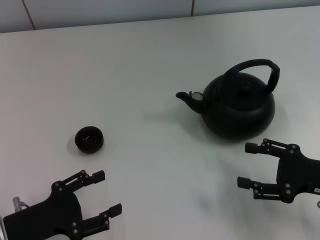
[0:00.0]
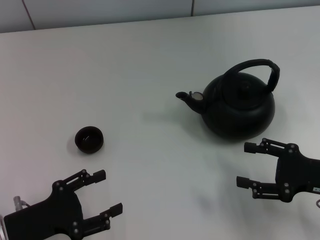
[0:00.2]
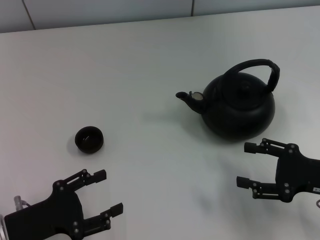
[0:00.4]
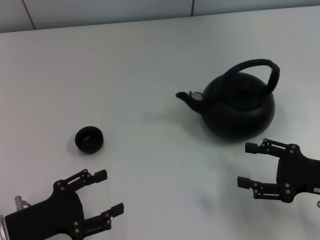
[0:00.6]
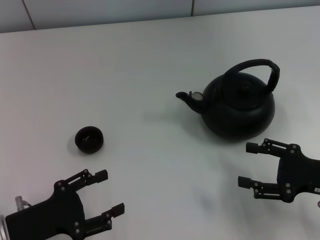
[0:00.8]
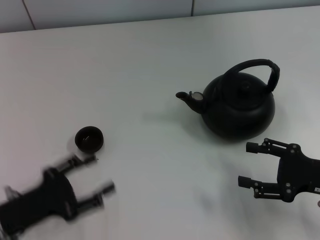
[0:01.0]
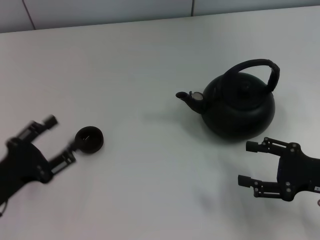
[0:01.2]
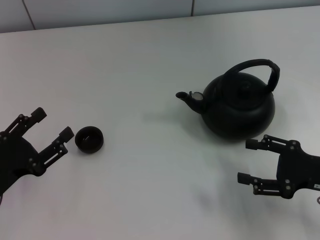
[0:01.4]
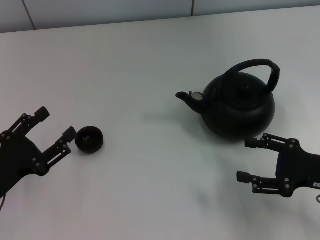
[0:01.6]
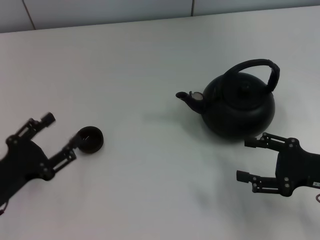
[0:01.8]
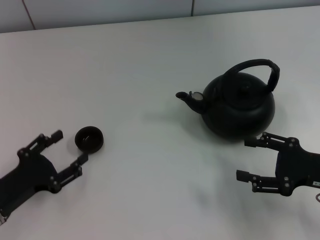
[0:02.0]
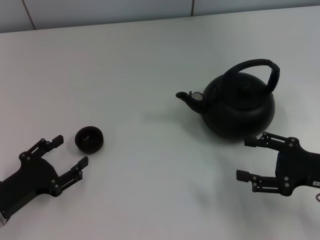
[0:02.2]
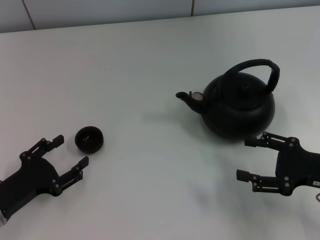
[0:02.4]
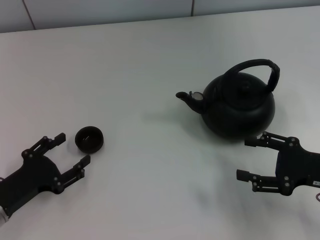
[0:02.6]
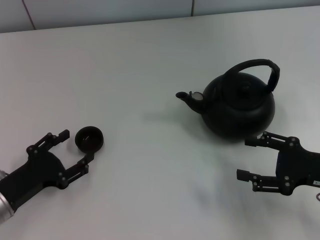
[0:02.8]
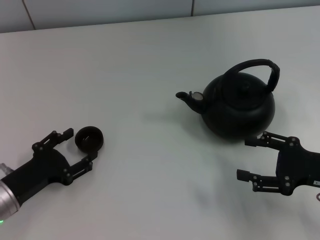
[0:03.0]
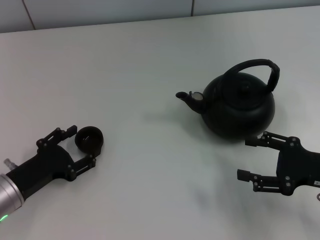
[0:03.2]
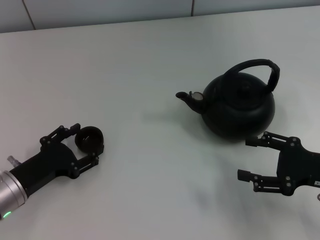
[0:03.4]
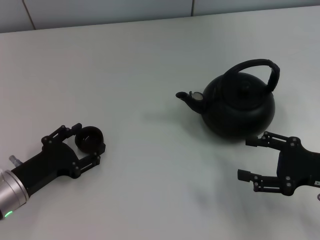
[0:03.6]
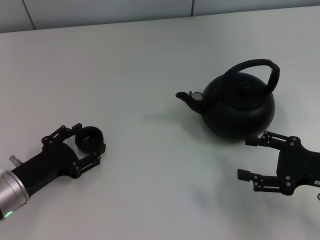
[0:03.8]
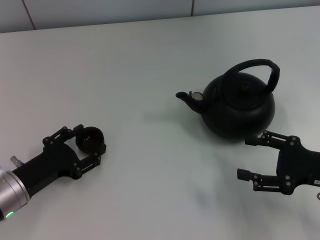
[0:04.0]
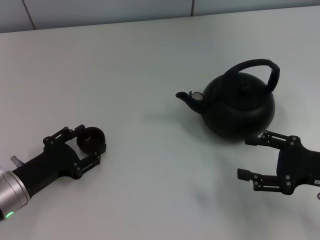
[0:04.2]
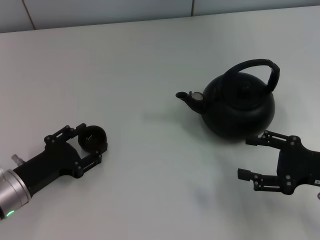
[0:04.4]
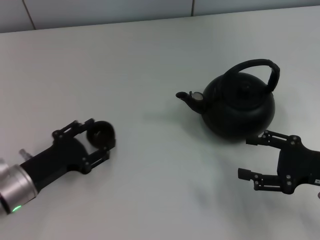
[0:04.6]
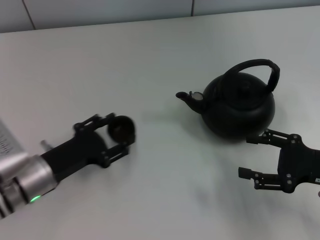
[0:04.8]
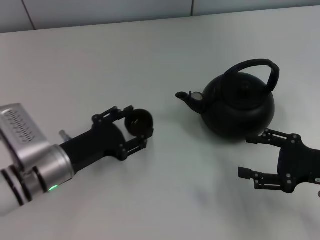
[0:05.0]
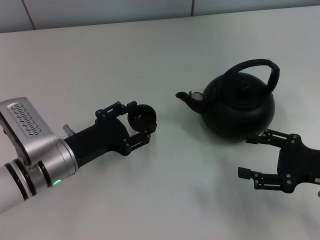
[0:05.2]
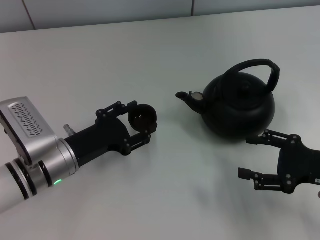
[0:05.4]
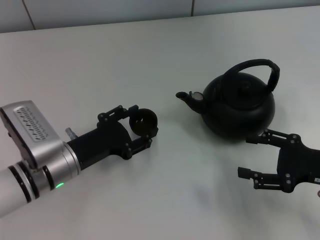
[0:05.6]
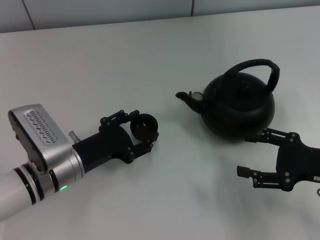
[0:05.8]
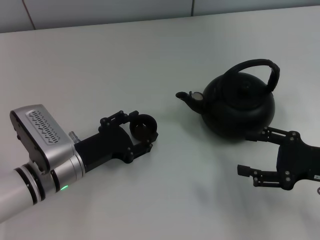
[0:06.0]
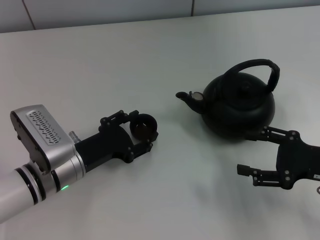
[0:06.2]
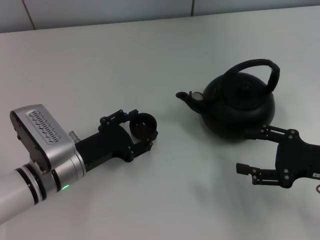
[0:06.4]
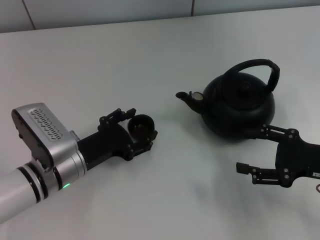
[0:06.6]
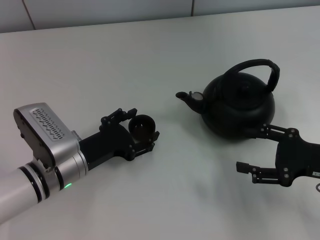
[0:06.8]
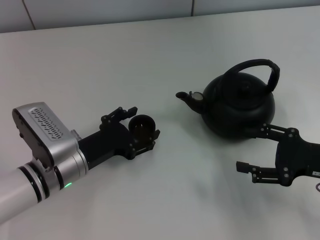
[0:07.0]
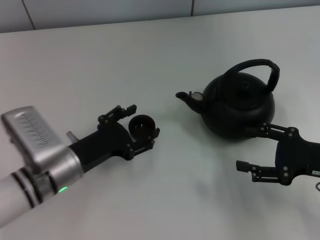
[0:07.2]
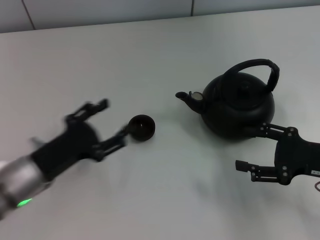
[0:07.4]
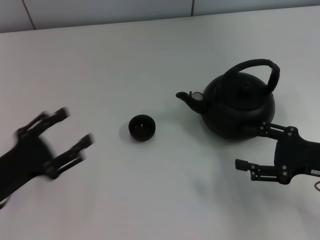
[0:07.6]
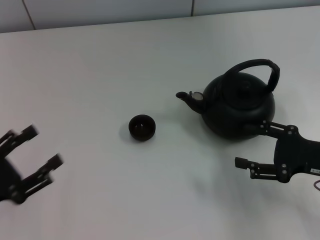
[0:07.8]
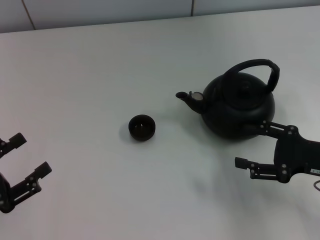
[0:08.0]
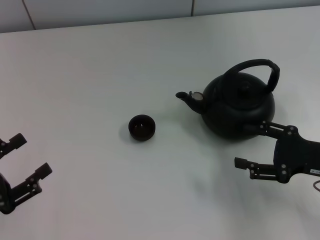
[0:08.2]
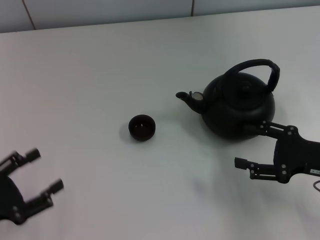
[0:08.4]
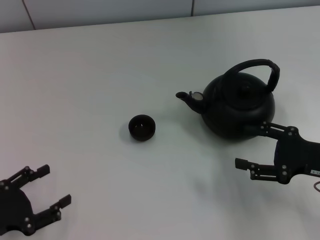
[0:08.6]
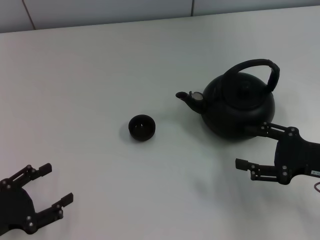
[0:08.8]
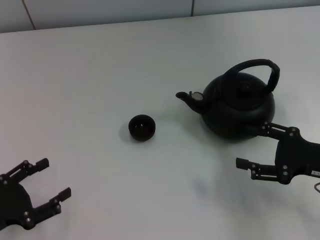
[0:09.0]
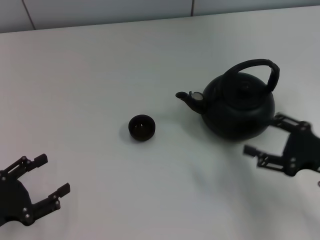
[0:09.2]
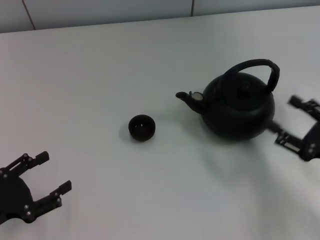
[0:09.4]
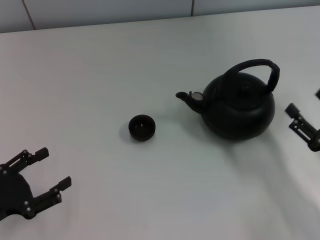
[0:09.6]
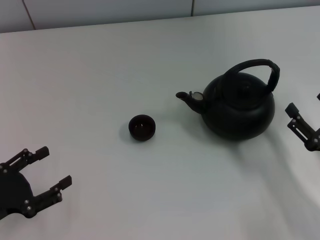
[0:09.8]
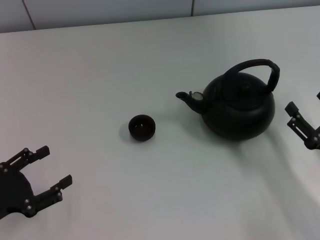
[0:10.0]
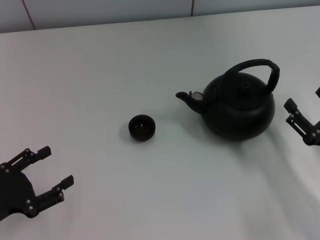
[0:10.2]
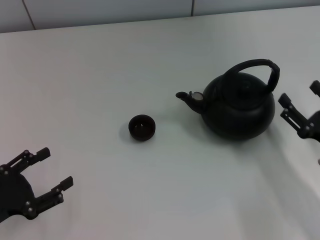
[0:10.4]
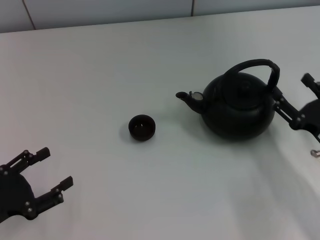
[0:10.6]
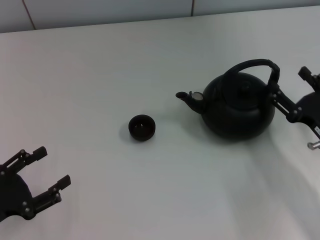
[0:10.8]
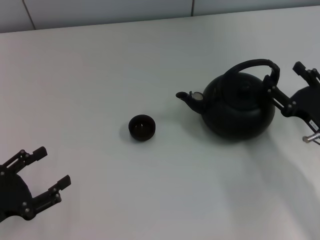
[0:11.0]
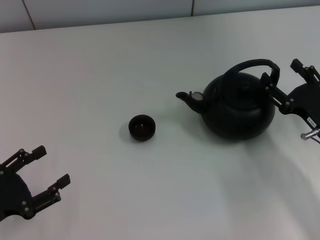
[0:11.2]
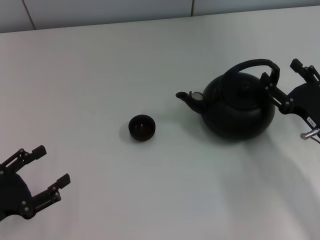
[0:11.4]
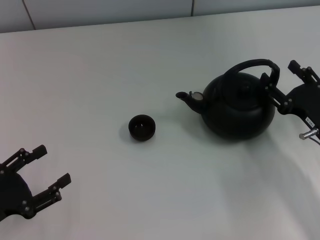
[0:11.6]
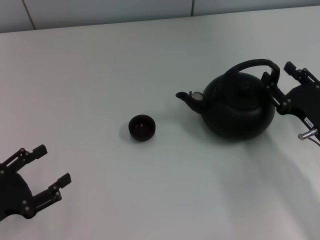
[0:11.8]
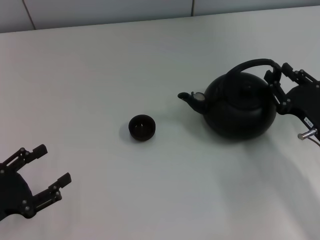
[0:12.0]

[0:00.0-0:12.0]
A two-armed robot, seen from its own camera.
Task of the whole recording: Grasp the handle of the teapot with one hand and pour tea into the teacup.
Step, 0:00.0 to 0:04.6: Pick up the teacup with the left gripper.
Step, 0:04.8 to 0:07.4: Place the teacup in the center of view with the left gripper.
0:01.6 to 0:04.4: The grippers stay close to where they were, moving slightly.
0:04.4 to 0:06.0: The left gripper is displaced to the right by about 10 cm.
0:06.0 to 0:07.6: The left gripper goes approximately 15 cm to the left and backward.
0:07.6 to 0:09.0: The left gripper moves roughly 5 cm.
0:10.4 to 0:12.0: The right gripper travels forward by approximately 5 cm.

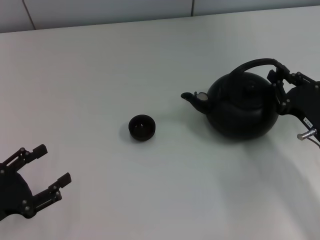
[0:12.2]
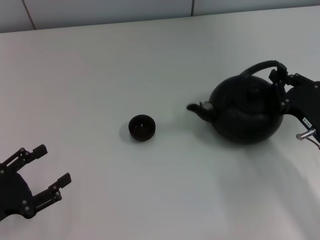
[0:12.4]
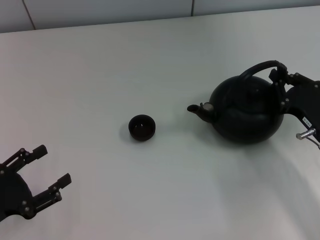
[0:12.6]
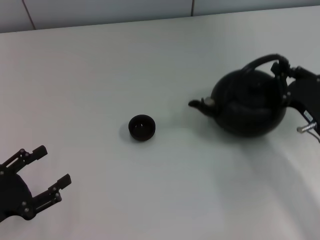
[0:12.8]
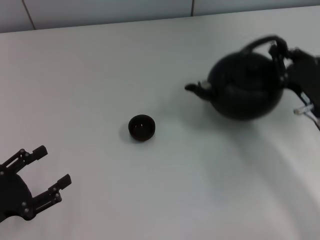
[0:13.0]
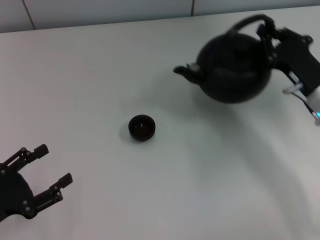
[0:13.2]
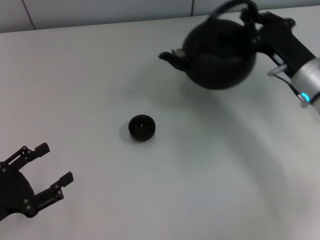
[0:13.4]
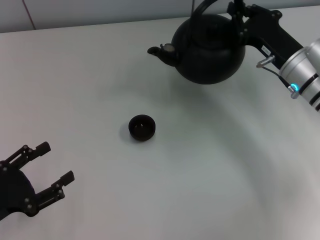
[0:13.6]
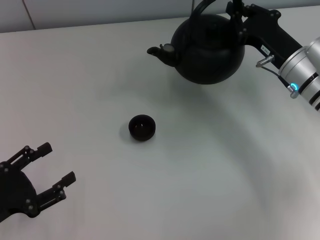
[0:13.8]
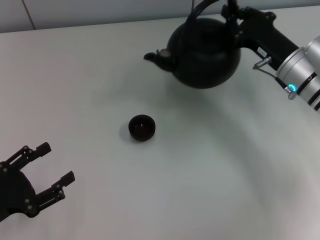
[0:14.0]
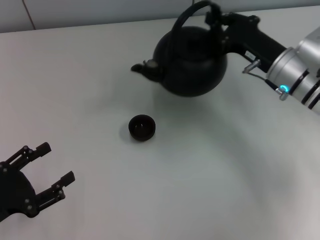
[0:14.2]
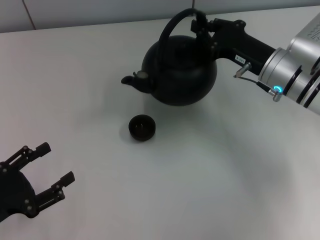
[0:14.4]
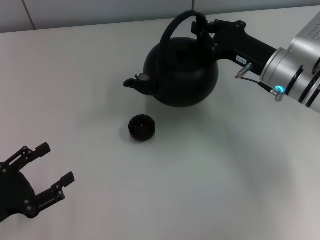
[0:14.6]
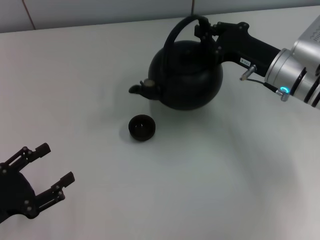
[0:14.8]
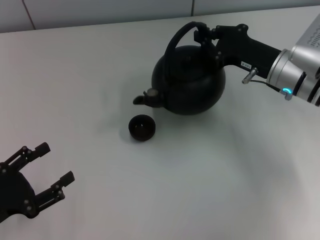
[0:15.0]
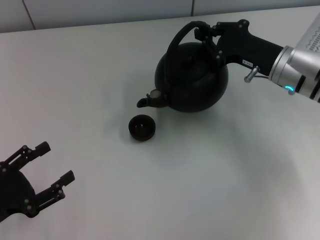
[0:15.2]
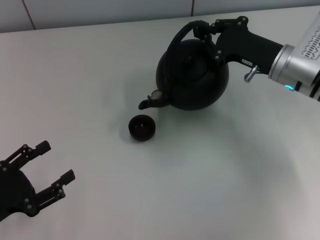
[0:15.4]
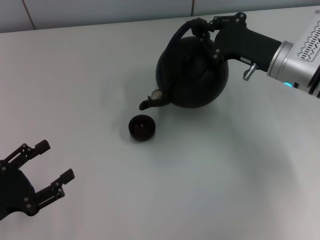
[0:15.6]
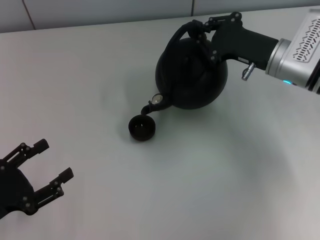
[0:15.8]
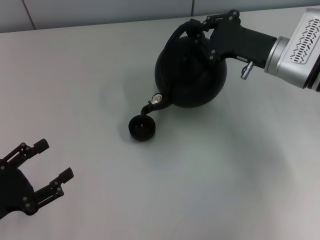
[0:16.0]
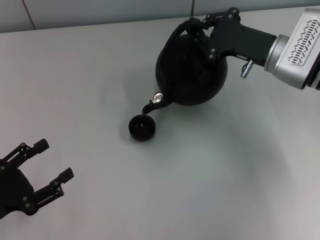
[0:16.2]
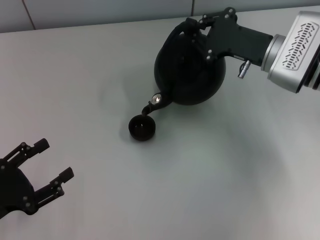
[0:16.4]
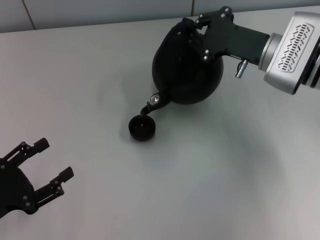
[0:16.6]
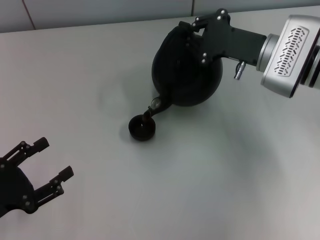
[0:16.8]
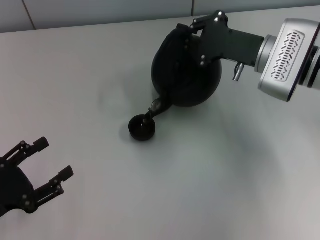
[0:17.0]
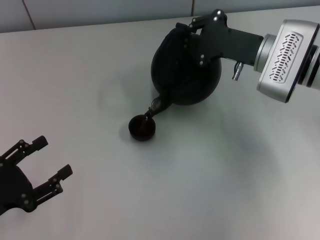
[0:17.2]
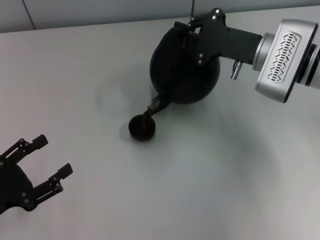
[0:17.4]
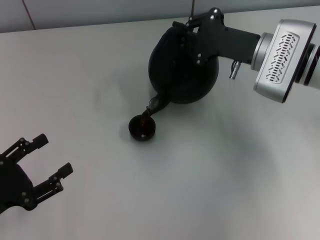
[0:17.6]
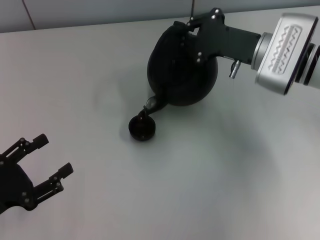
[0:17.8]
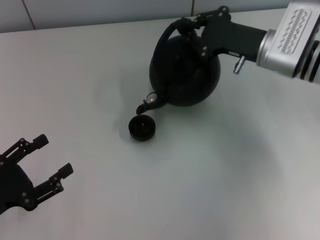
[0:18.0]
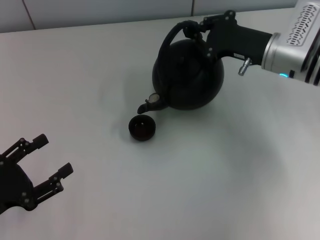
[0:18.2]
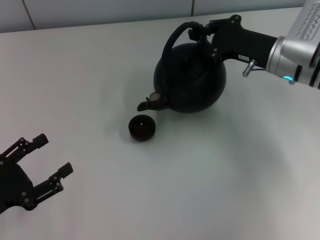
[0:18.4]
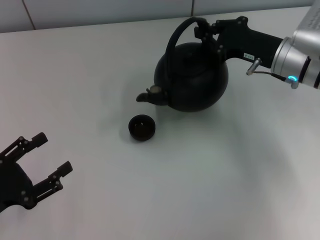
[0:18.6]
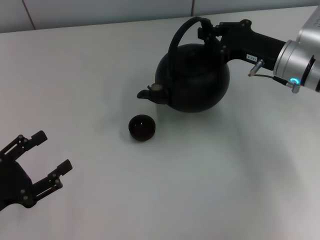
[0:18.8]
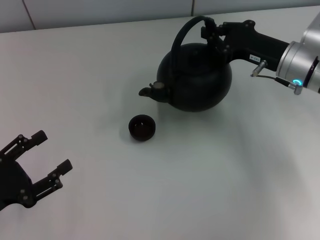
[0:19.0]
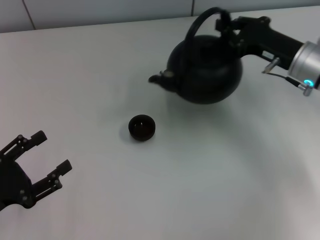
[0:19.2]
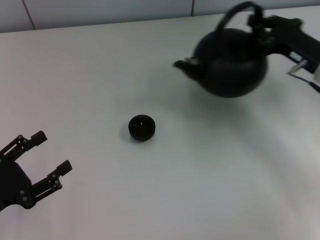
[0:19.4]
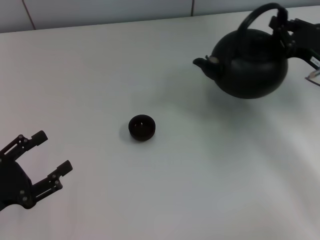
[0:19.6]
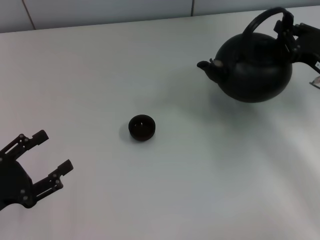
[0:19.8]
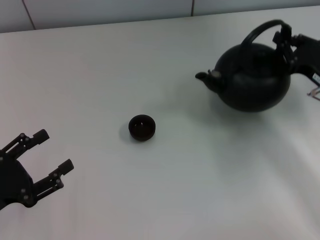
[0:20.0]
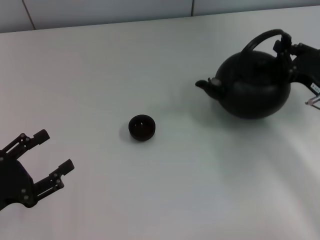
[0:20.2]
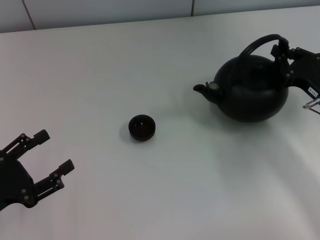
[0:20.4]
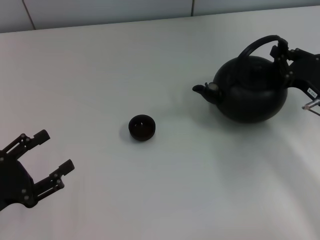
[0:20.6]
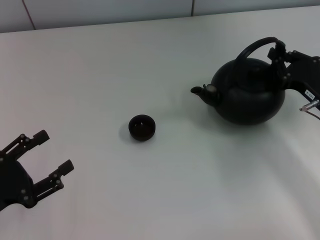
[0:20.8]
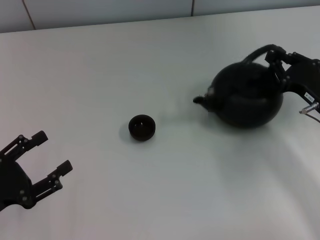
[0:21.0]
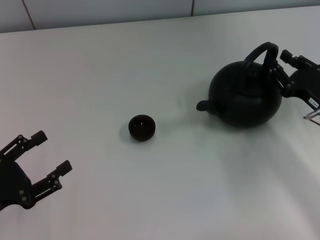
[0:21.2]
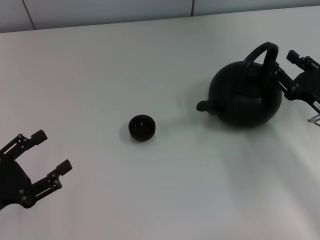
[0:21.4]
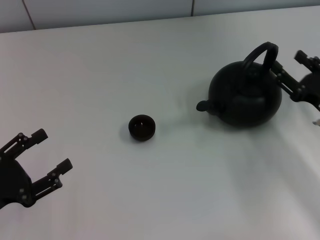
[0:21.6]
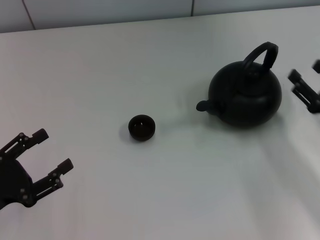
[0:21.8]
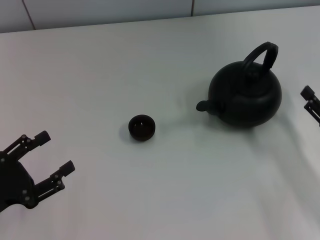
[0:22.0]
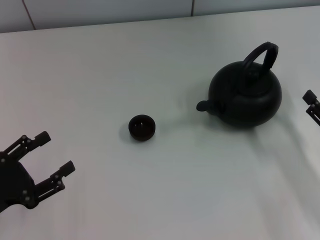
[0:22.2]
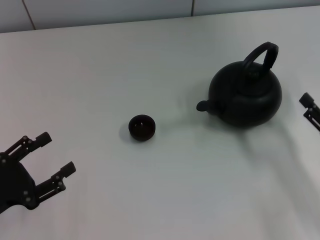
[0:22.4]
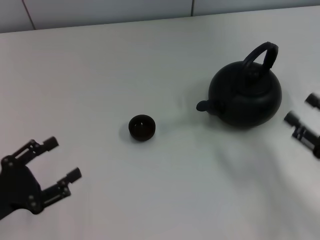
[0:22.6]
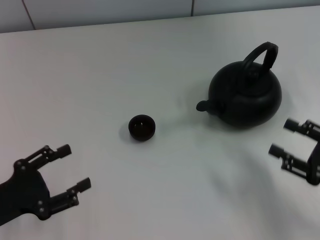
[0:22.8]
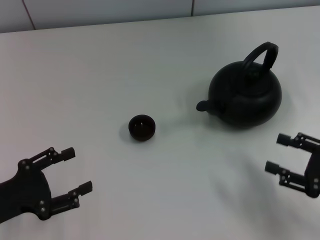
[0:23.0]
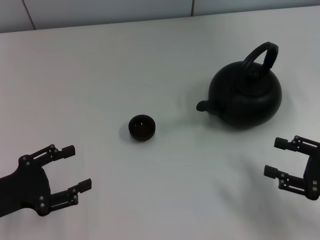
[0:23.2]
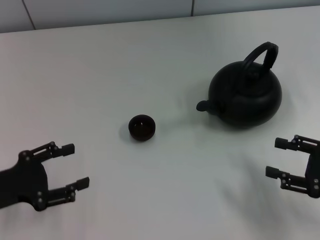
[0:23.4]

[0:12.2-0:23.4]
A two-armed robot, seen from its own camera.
Task of the whole recording: Grasp the handle of the teapot with one hand and pour tea into the teacup.
Step, 0:18.8 to 0:21.6: Put down the teapot with the right gripper.
0:12.2 to 0:13.8: The right gripper heads forward and upward, covering approximately 10 cm, and closes.
0:18.6 to 0:20.2: The right gripper is displaced backward and to the right by about 10 cm.
0:20.2 to 0:21.8: The right gripper is displaced backward by approximately 5 cm, and opens up.
0:21.8 to 0:23.4: The right gripper moves approximately 5 cm.
